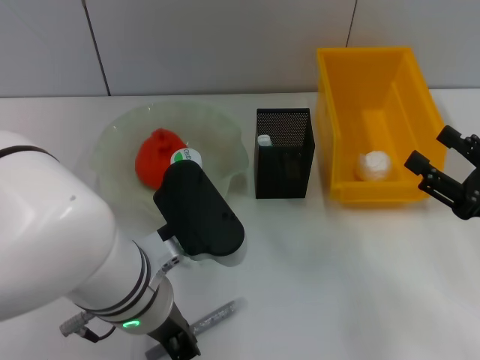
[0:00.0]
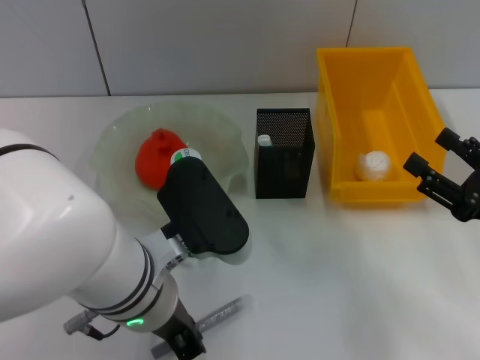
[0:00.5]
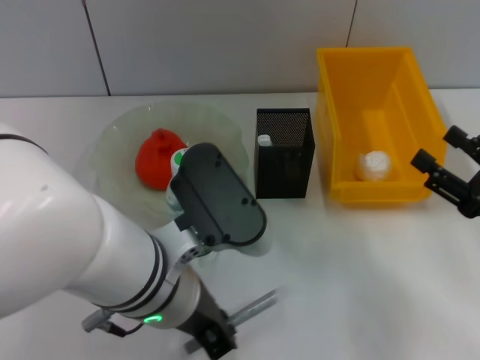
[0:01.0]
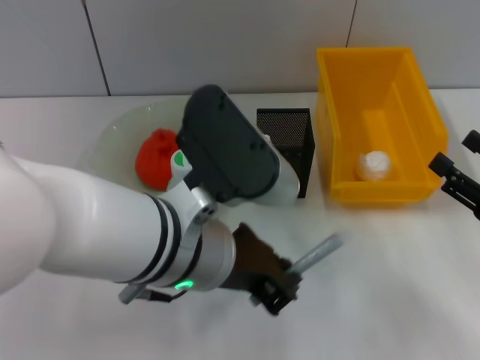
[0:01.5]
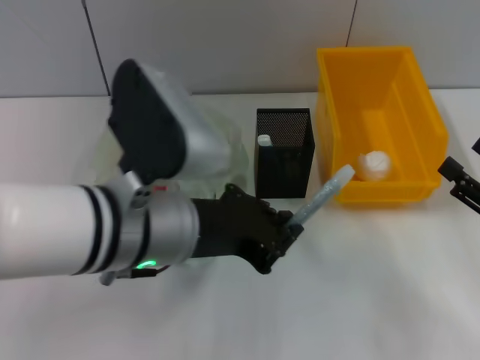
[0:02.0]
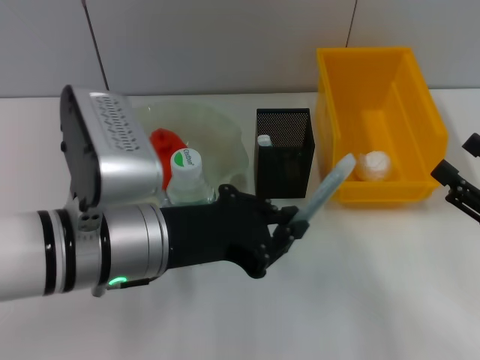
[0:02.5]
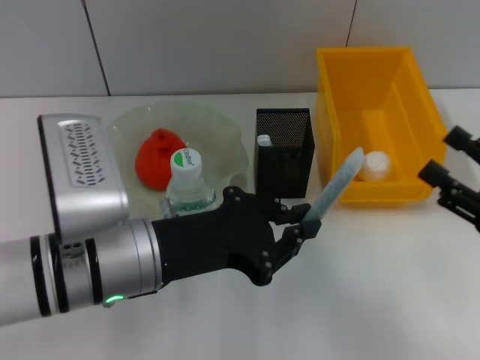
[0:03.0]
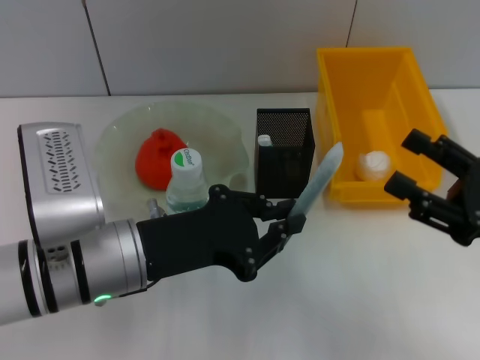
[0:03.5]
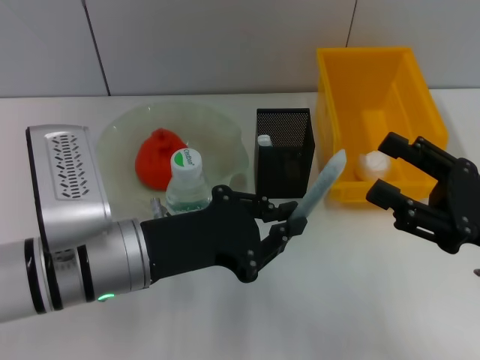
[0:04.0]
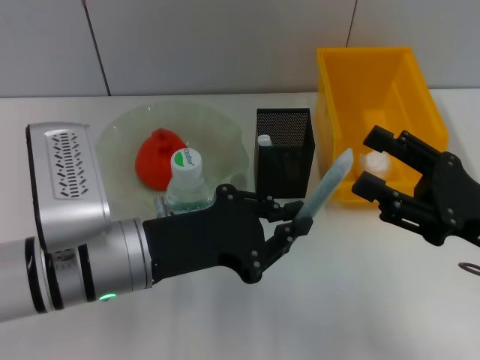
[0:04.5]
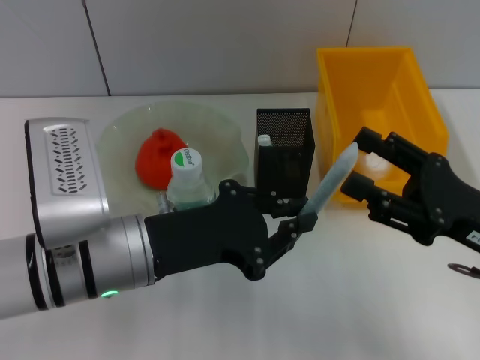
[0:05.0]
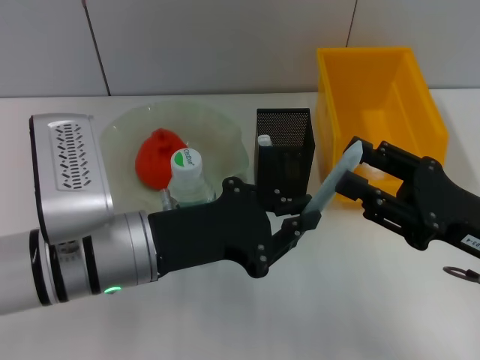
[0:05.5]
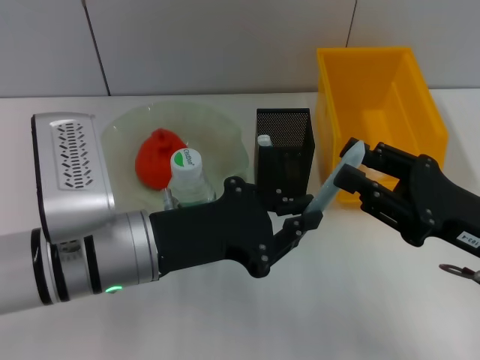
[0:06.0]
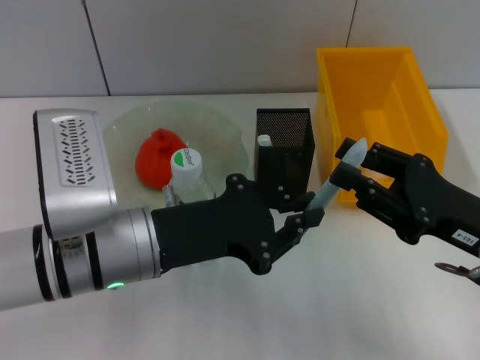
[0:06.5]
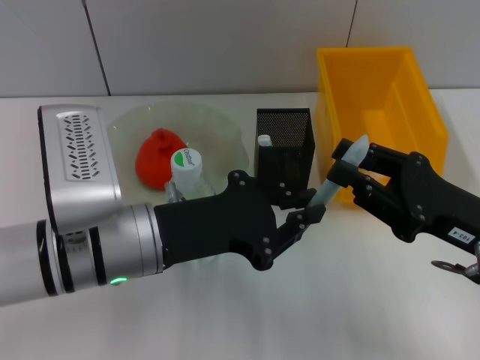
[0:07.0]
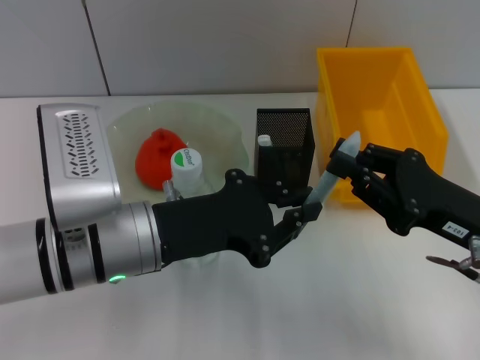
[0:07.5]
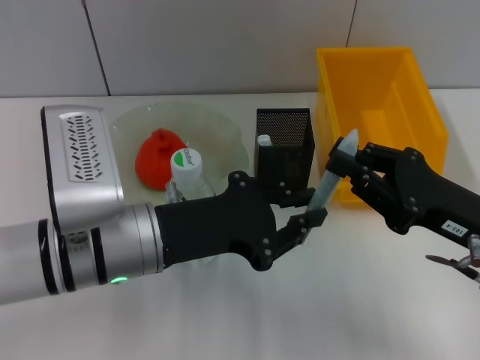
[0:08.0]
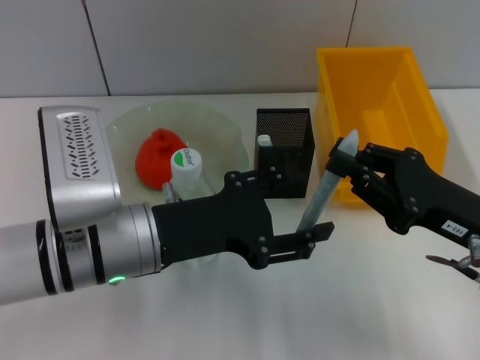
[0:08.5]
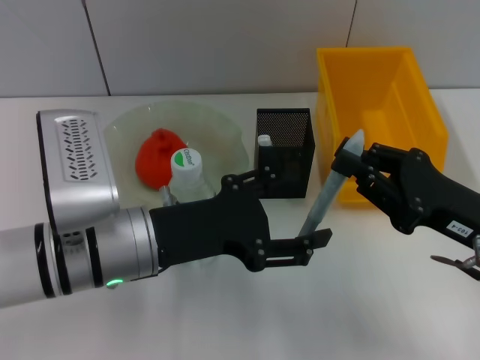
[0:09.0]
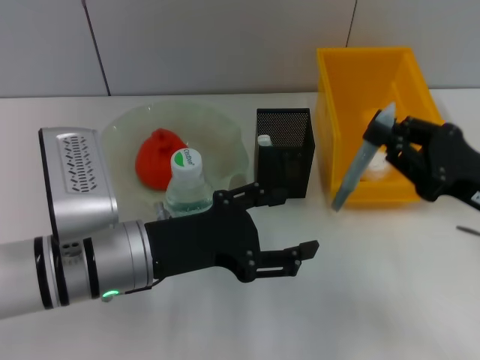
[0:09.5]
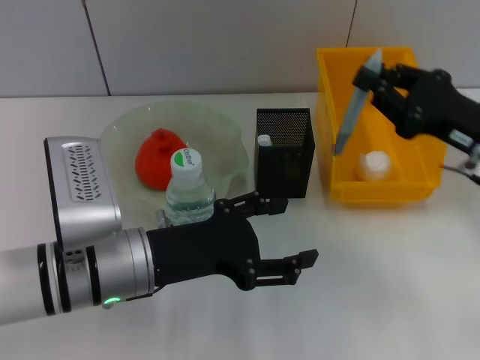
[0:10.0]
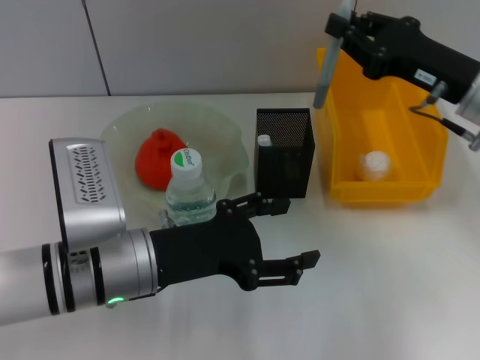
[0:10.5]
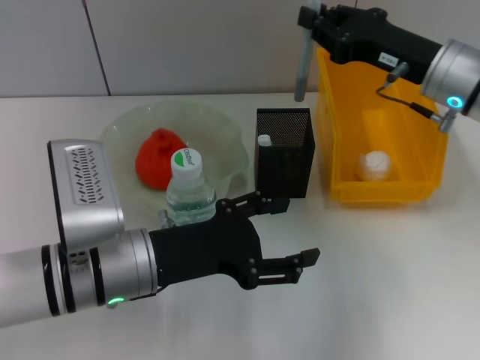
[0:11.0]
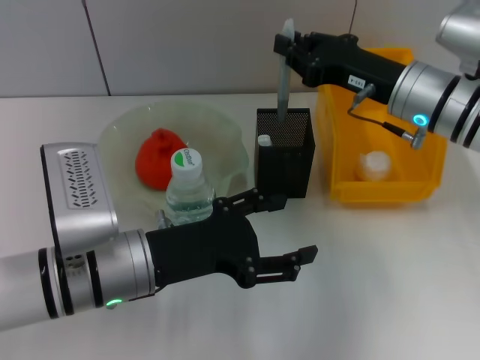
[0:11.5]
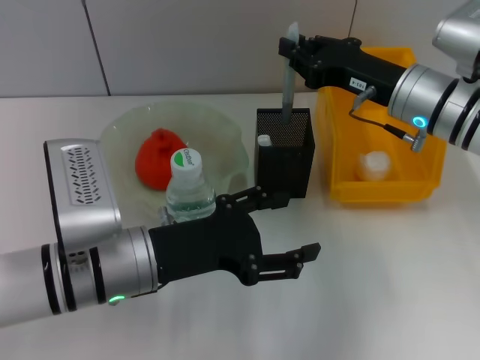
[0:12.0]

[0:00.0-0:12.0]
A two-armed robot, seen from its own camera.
Step, 0:00.0 to 0:08.5: Pass the gray spring-action pen from the left hand to the right hand.
0:02.0 to 0:04.0: The right gripper is displaced to the left by some 5 cm. Meanwhile the left gripper heads downward, covering about 5 cm.
0:04.0 to 0:06.0: The right gripper closes up.
0:06.0 to 0:08.0: The right gripper closes up.
0:08.0 to 0:10.0: The right gripper is displaced forward by approximately 5 cm, while the left gripper opens its fingers.
0:10.0 to 0:12.0: The right gripper is displaced forward and to the left by about 10 cm.

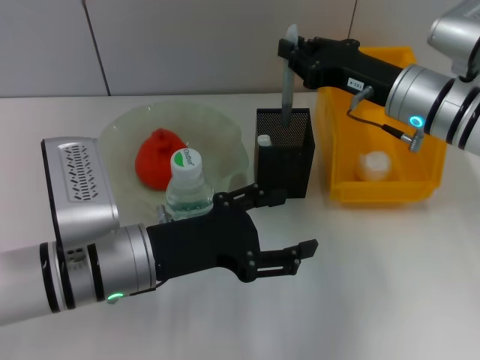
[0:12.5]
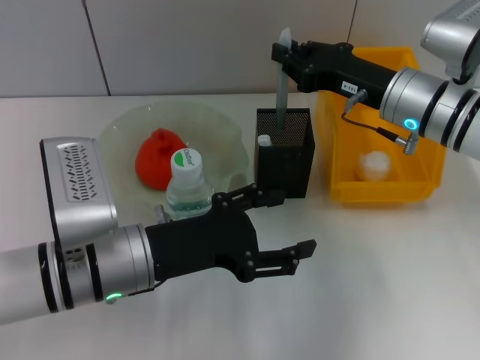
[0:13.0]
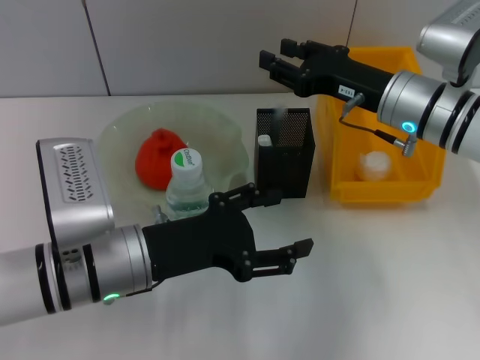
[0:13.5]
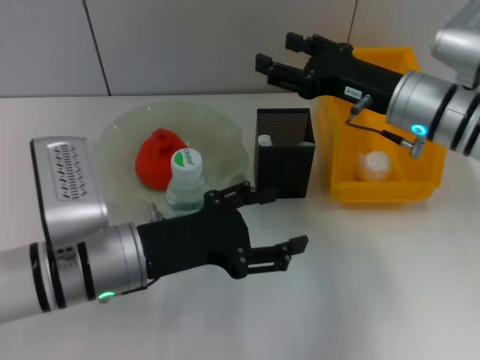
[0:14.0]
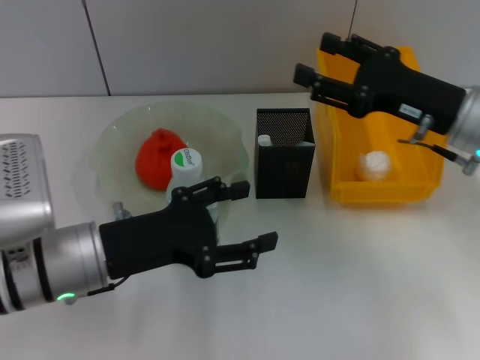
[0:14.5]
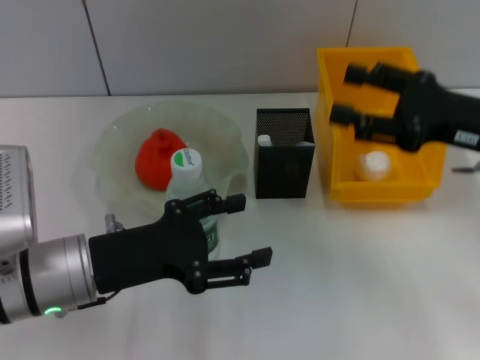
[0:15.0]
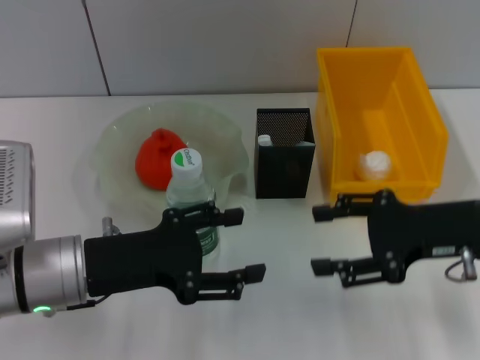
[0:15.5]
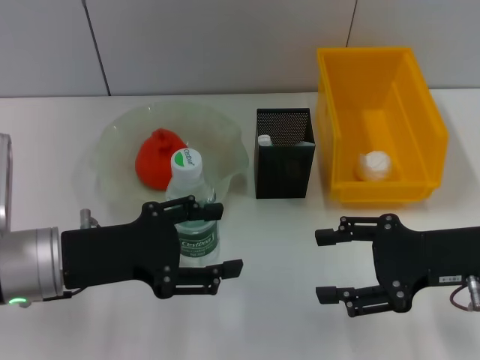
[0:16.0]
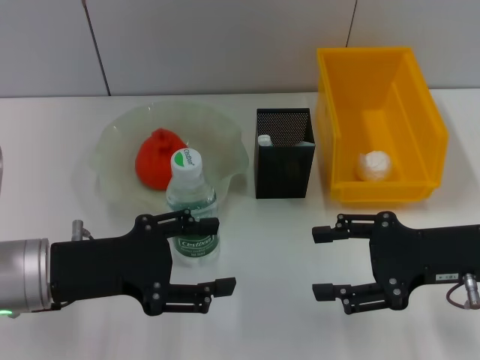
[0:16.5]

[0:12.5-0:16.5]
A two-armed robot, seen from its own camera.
0:12.5 to 0:14.5: The right gripper is displaced backward by roughly 5 cm, and opens up.
0:14.5 to 0:16.5: The right gripper heads backward, covering roughly 10 cm.
